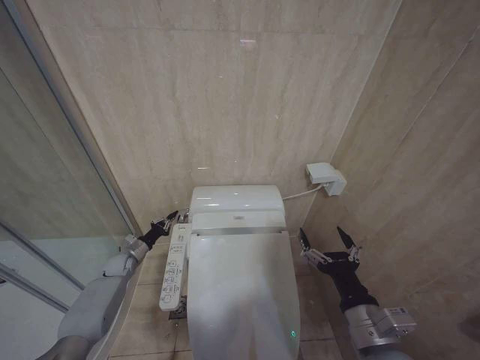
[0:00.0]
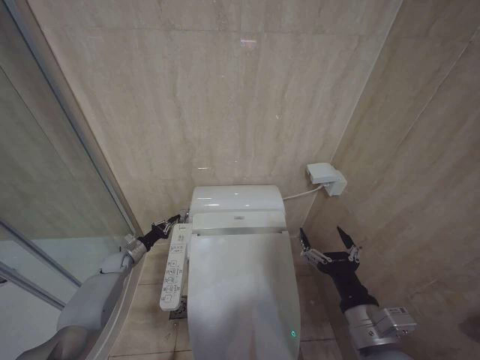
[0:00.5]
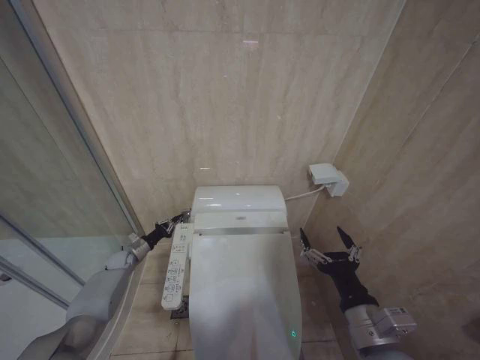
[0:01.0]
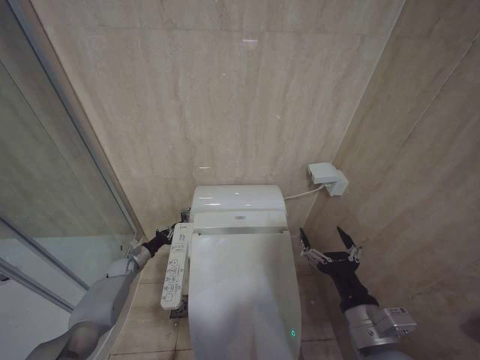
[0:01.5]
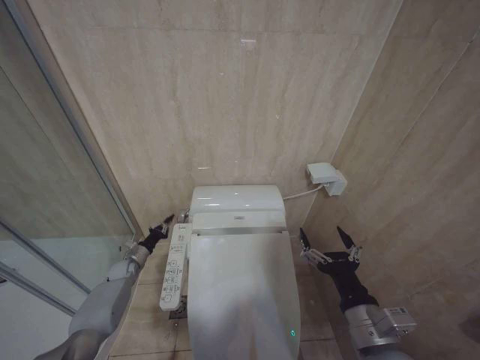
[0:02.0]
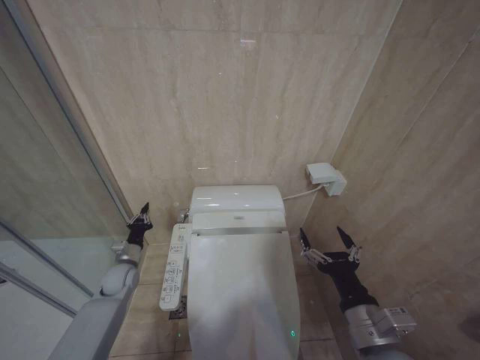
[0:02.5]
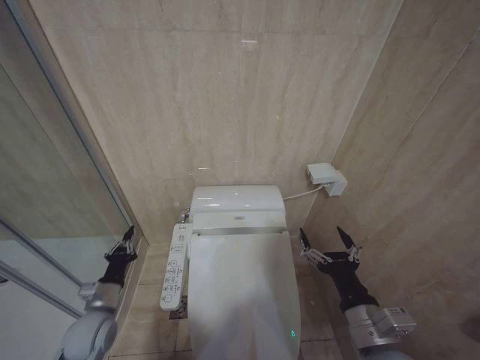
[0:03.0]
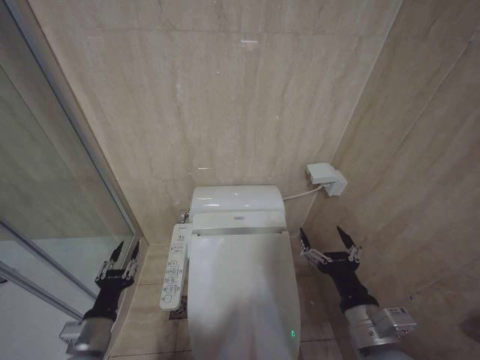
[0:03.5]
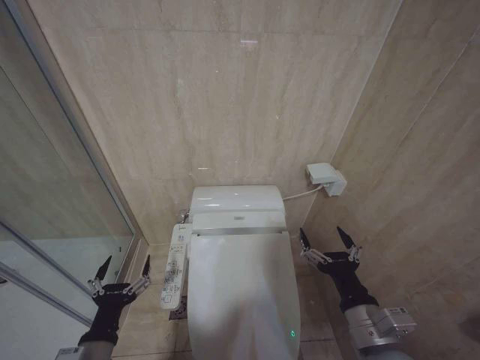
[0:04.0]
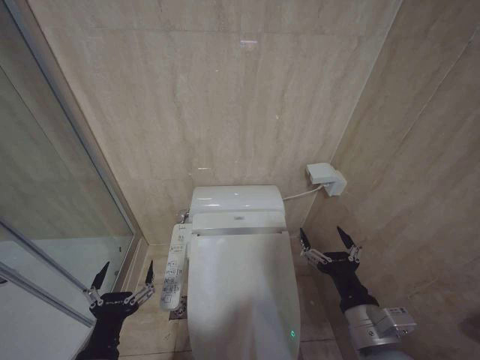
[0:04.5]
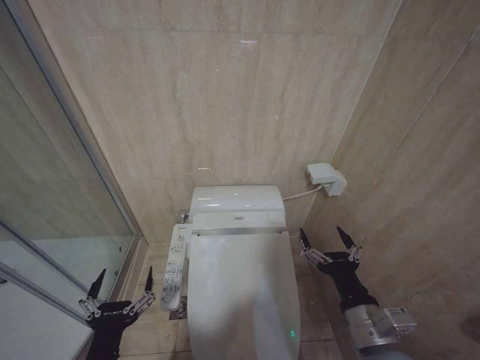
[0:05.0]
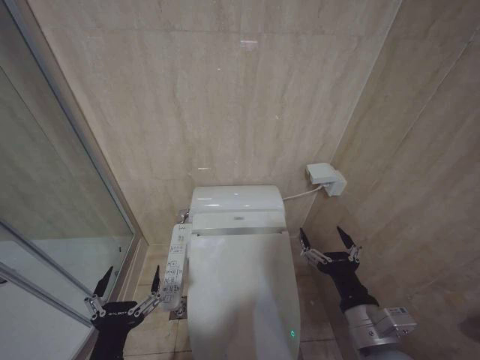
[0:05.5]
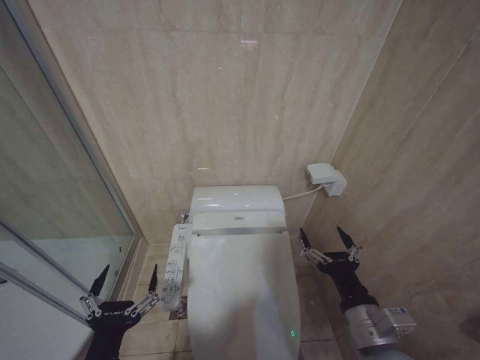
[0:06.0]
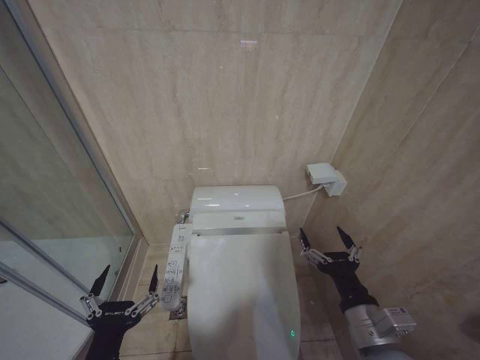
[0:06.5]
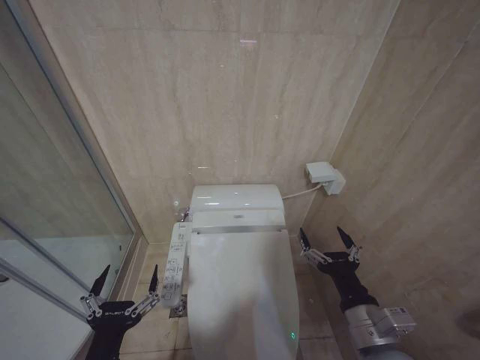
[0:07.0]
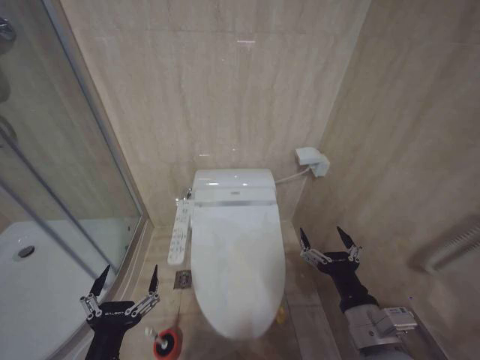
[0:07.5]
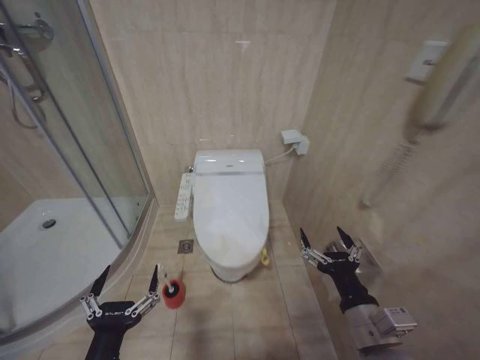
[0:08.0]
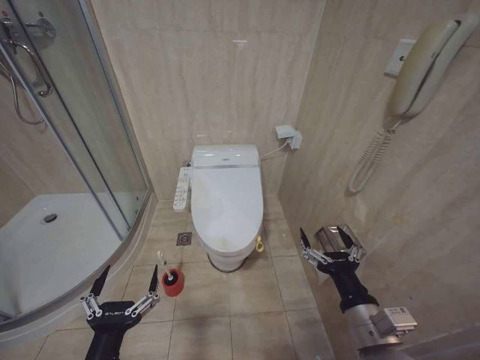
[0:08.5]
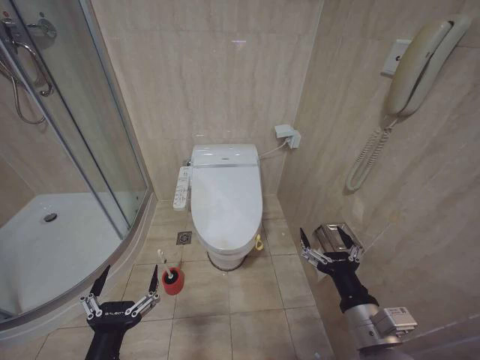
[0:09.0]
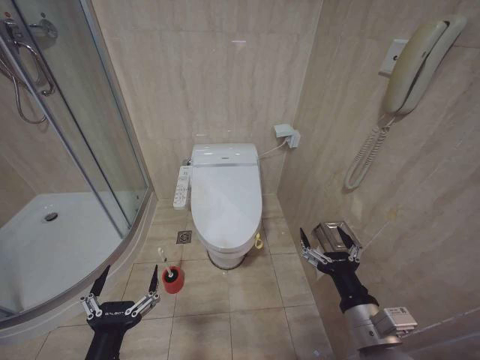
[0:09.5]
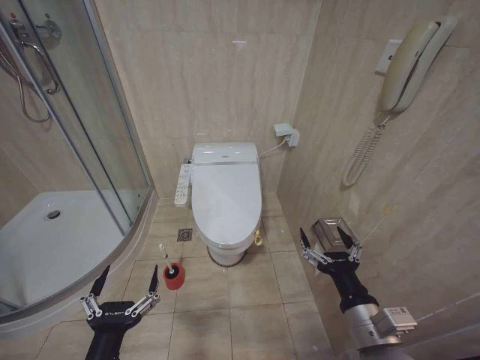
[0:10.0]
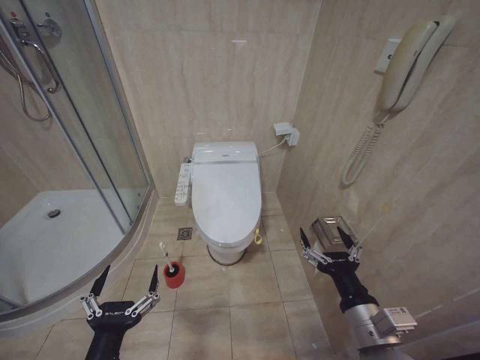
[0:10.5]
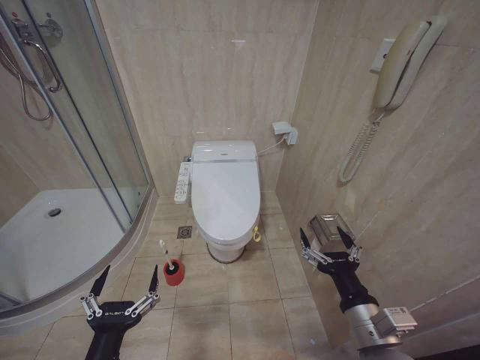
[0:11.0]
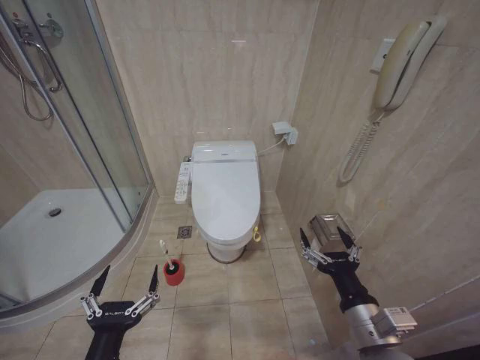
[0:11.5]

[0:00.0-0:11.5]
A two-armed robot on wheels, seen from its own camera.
Task of the whole recording: Open the toilet lid, clean the toilet bowl with a toilet brush, close the toilet lid, and flush.
0:00.0 to 0:02.0: There are only small adjustments of the grippers.
0:02.0 to 0:04.0: The left gripper goes approximately 40 cm backward and upward, and opens.
0:04.0 to 0:06.0: The left gripper is displaced backward, upward and to the right by roughly 10 cm.
0:06.0 to 0:07.5: Neither gripper changes place.
0:09.5 to 0:11.5: Both grippers stay about where they are.
